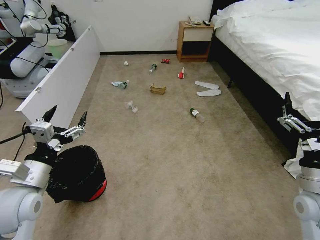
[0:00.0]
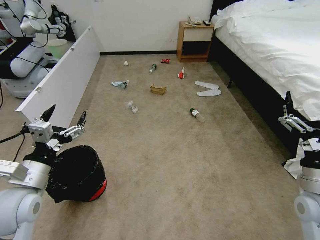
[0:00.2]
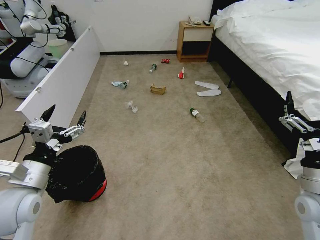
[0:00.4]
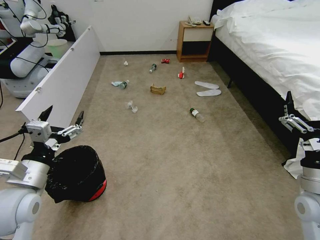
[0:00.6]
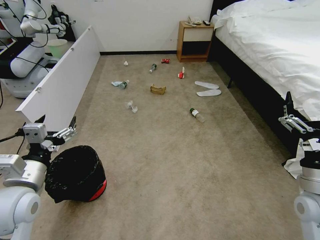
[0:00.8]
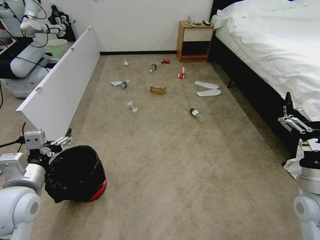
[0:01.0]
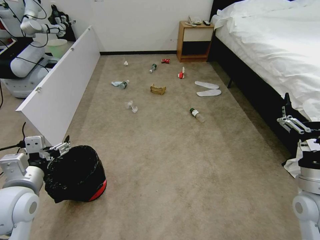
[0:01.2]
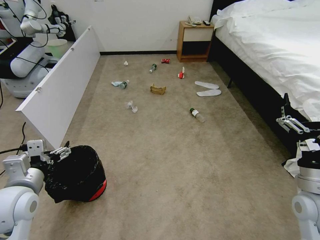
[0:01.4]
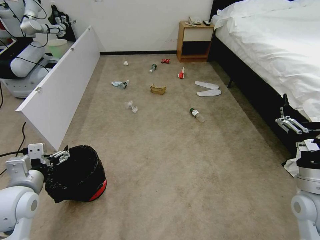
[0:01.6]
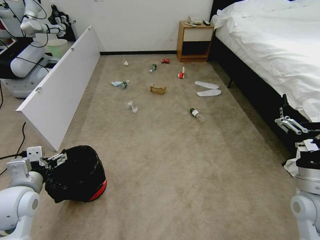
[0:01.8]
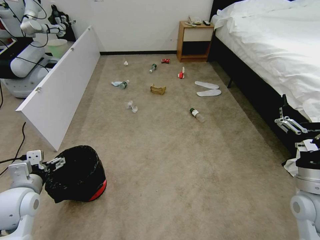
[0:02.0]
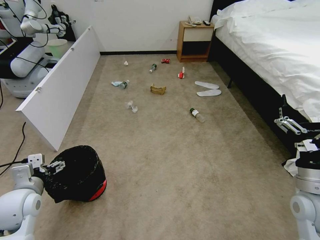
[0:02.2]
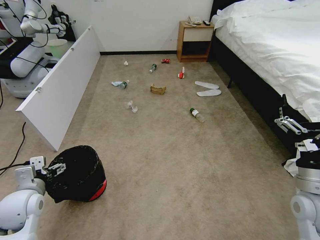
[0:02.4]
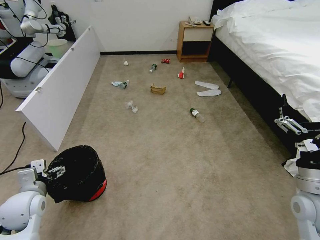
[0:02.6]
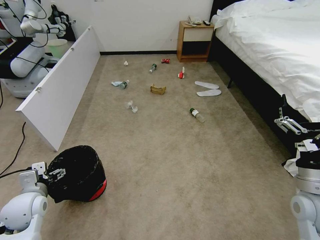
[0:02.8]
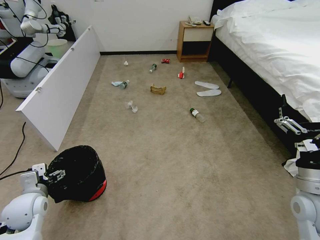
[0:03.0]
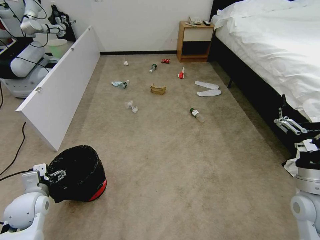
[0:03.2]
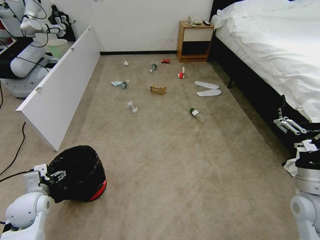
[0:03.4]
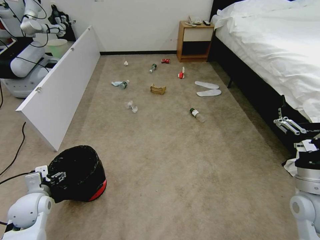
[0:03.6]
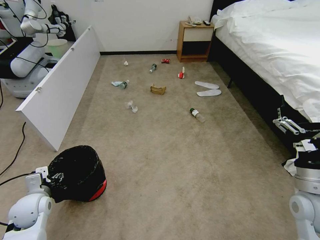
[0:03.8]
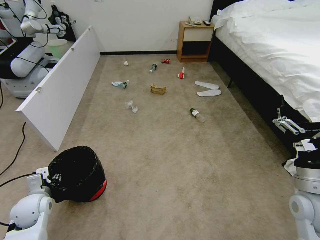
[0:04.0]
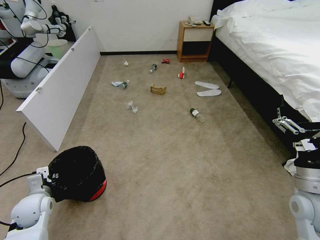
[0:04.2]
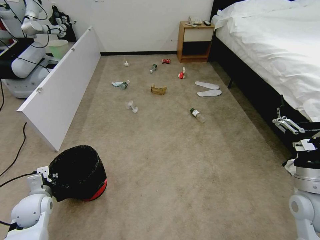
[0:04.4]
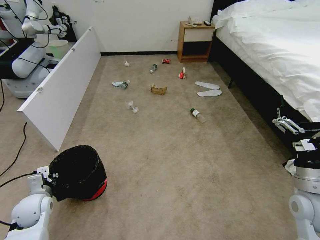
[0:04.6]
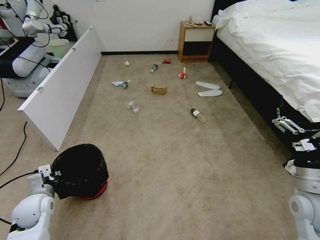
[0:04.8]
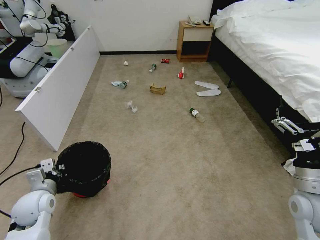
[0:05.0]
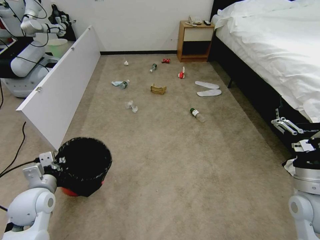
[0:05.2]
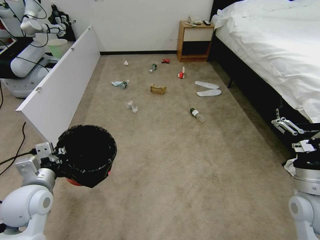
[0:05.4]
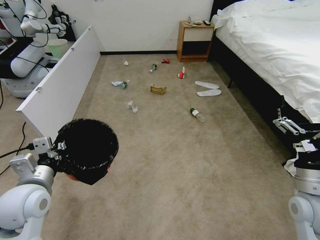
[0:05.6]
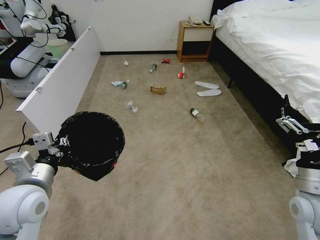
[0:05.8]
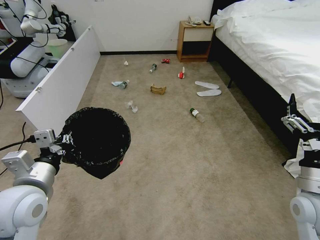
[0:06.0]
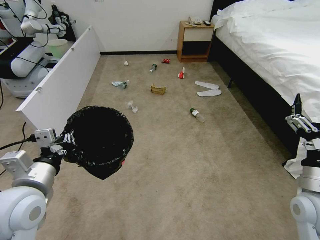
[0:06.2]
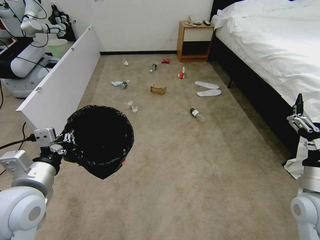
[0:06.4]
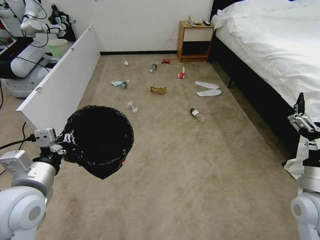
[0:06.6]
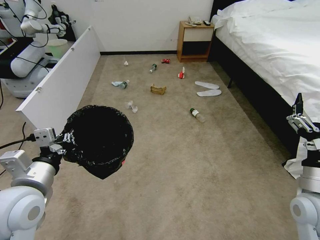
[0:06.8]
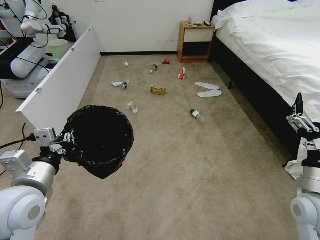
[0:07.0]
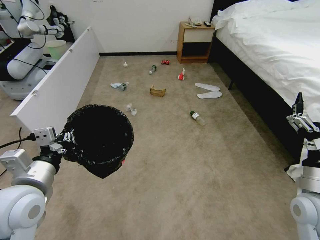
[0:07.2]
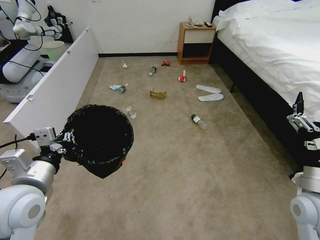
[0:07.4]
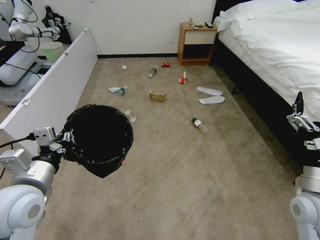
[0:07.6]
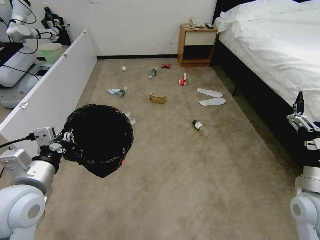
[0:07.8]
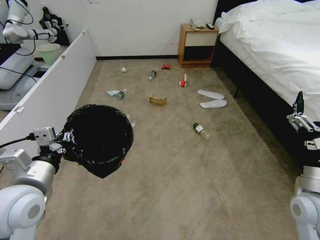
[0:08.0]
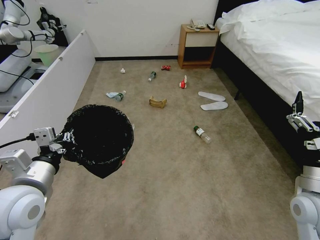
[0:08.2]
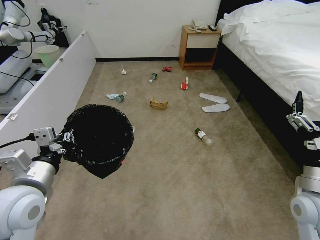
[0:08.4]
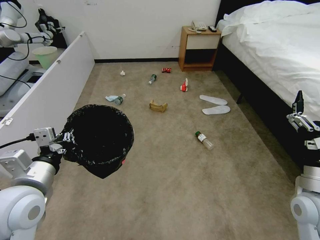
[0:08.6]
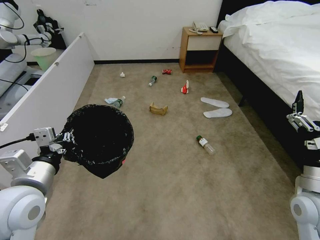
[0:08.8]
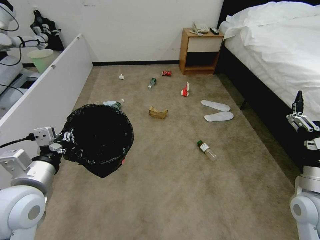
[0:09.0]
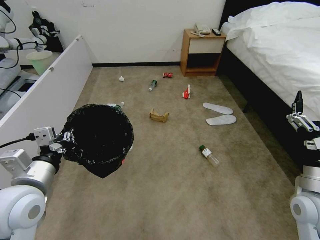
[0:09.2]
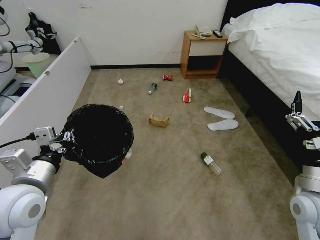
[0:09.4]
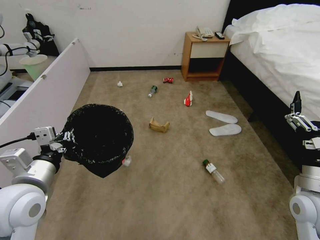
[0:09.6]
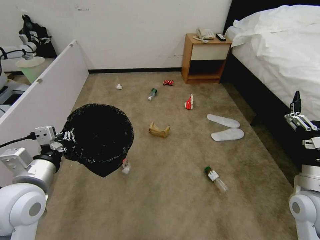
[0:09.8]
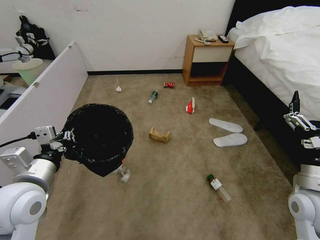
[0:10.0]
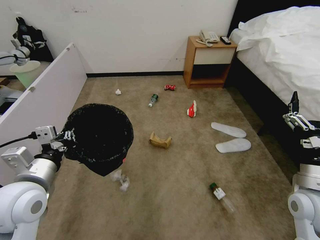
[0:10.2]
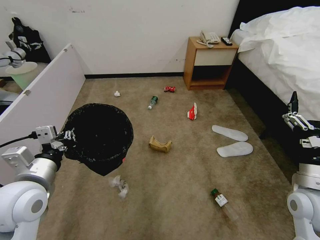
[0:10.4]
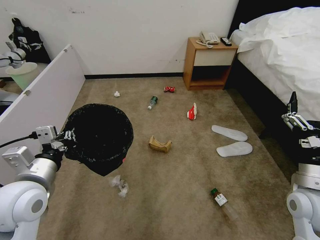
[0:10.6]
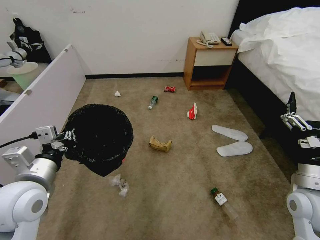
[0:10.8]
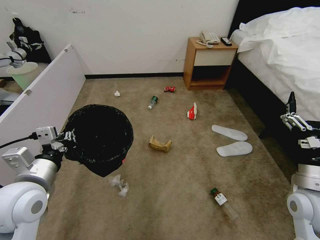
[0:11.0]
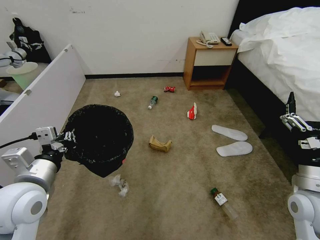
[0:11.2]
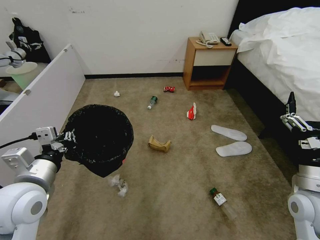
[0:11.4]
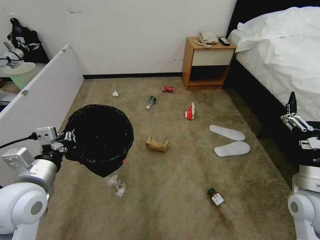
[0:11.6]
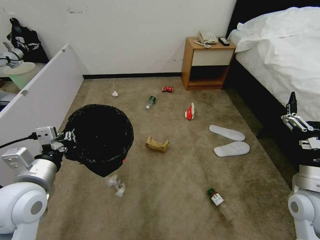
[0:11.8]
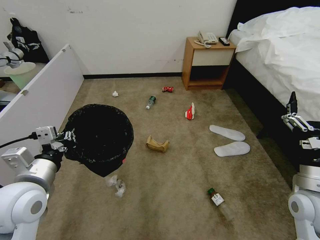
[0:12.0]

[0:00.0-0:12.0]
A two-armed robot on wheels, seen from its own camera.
Task of the whole recording: Pick up the trash bin, then pick up the garbage from the floor and place it into the trash bin.
0:01.6 to 0:03.0: The left gripper goes some 10 cm downward.
0:03.0 to 0:04.4: The grippers stay close to where they were, moving slightly.
0:04.4 to 0:06.0: The left gripper travels upward and to the right by approximately 20 cm.
0:06.0 to 0:09.0: Neither gripper changes place.
0:10.4 to 0:12.0: Neither gripper changes place.

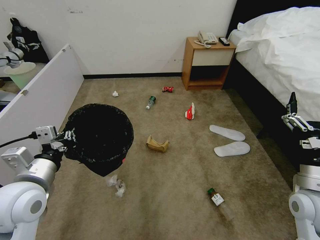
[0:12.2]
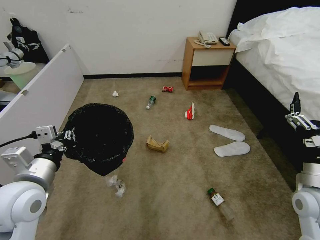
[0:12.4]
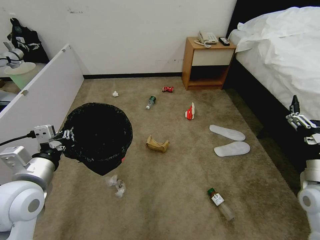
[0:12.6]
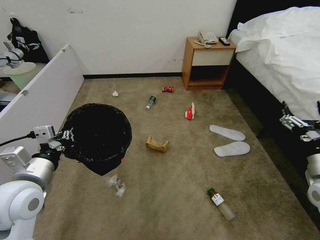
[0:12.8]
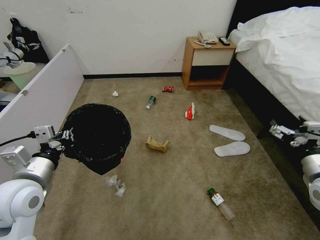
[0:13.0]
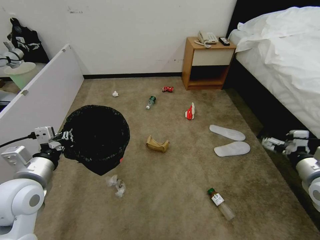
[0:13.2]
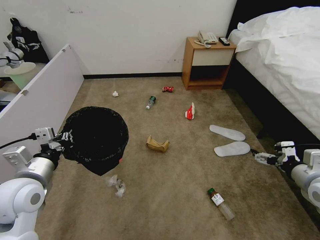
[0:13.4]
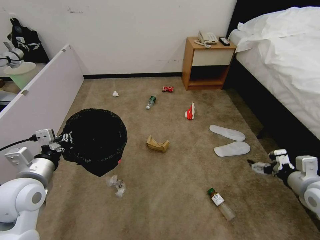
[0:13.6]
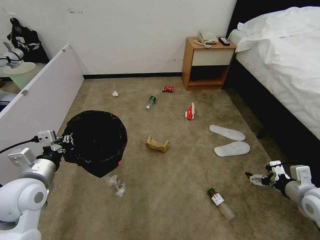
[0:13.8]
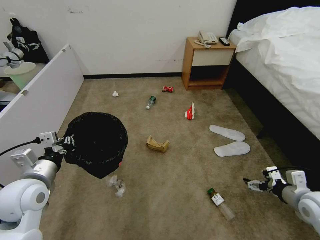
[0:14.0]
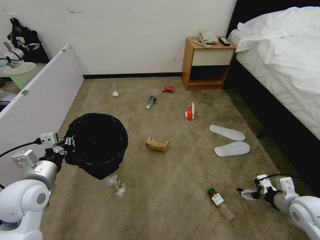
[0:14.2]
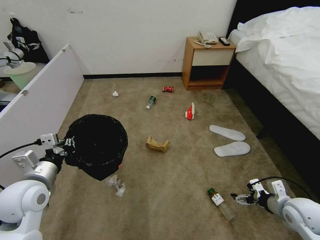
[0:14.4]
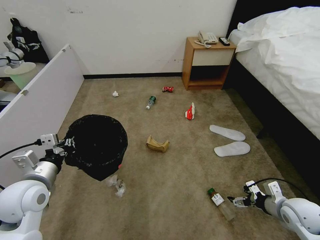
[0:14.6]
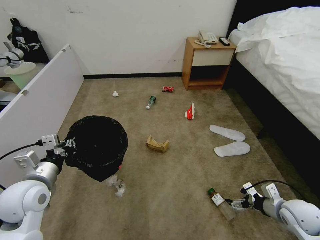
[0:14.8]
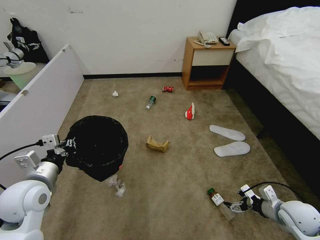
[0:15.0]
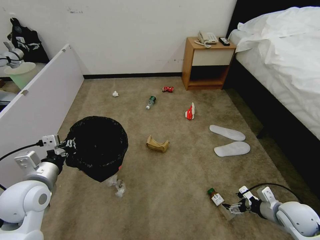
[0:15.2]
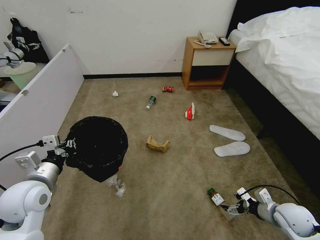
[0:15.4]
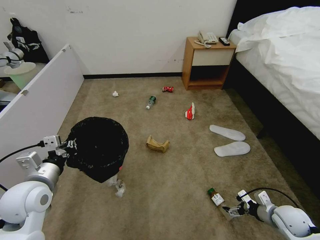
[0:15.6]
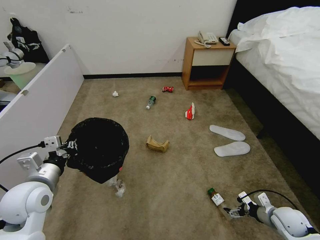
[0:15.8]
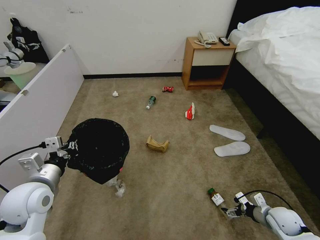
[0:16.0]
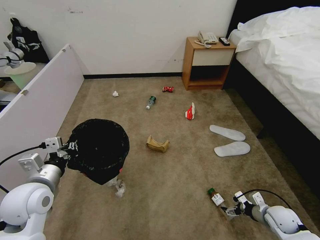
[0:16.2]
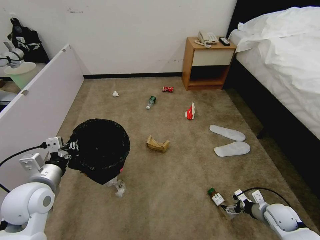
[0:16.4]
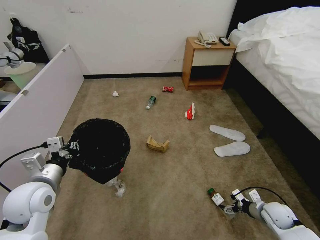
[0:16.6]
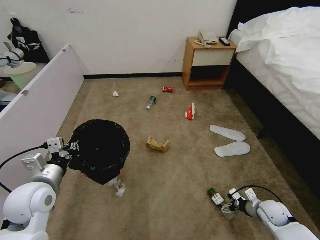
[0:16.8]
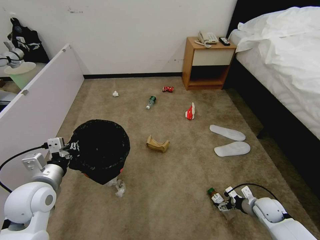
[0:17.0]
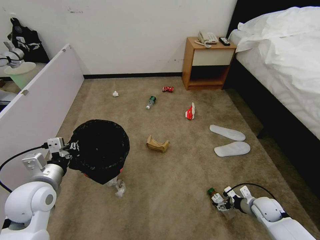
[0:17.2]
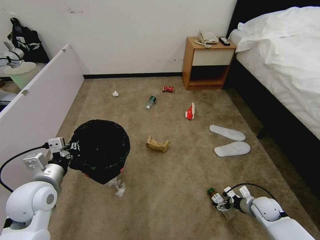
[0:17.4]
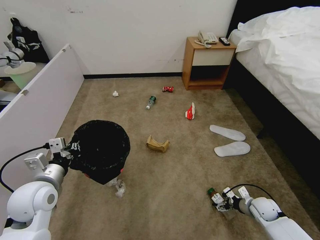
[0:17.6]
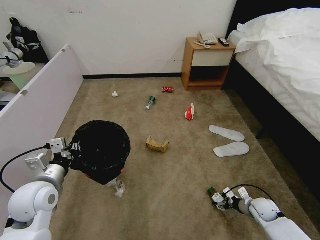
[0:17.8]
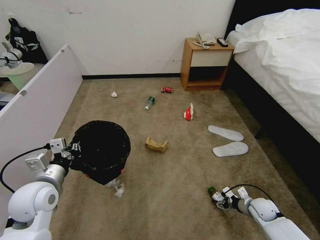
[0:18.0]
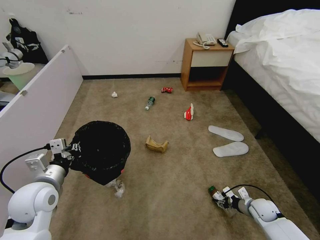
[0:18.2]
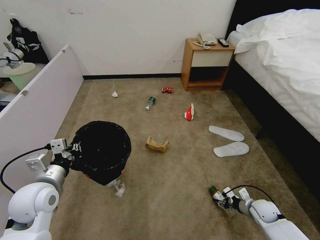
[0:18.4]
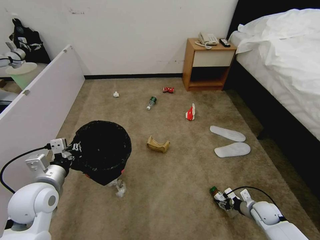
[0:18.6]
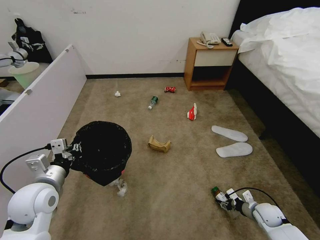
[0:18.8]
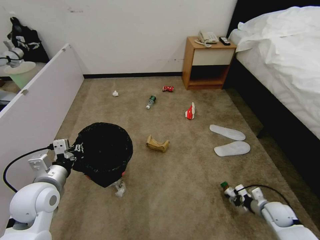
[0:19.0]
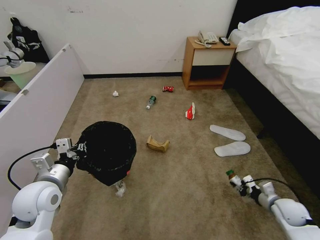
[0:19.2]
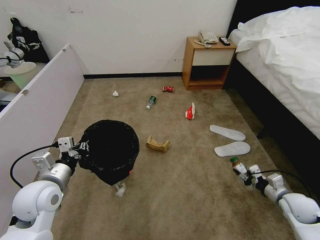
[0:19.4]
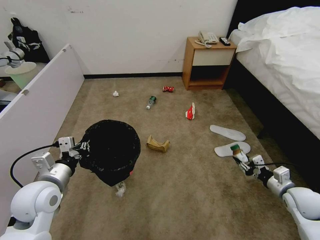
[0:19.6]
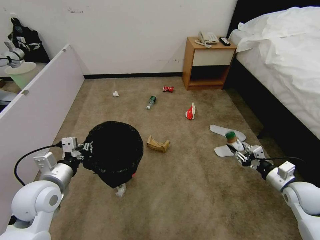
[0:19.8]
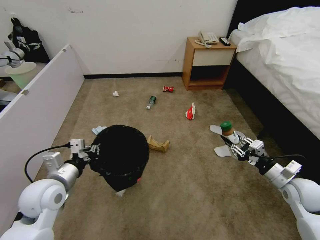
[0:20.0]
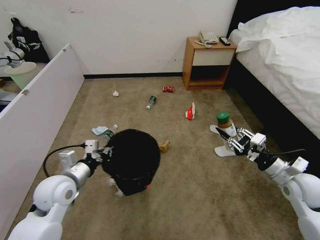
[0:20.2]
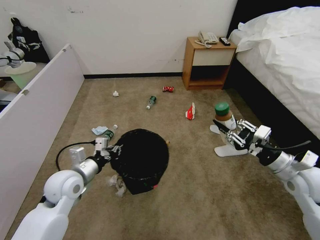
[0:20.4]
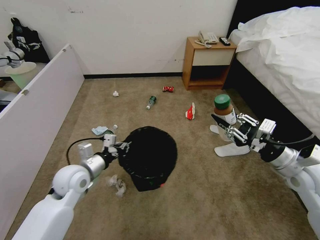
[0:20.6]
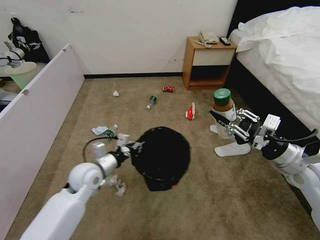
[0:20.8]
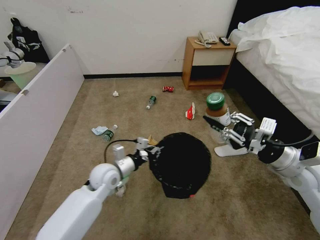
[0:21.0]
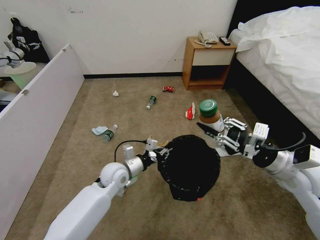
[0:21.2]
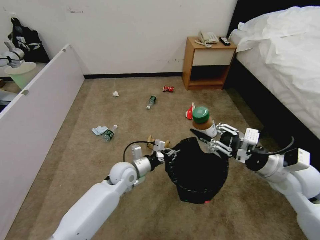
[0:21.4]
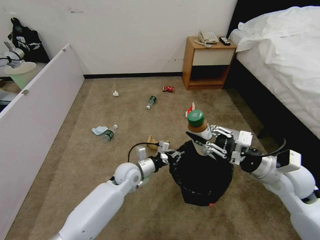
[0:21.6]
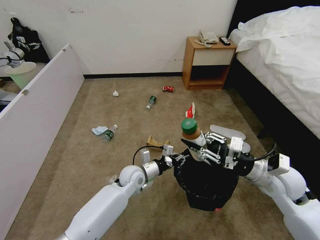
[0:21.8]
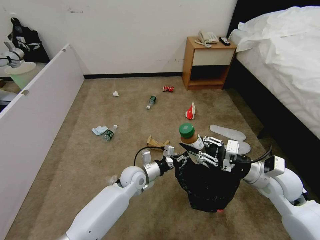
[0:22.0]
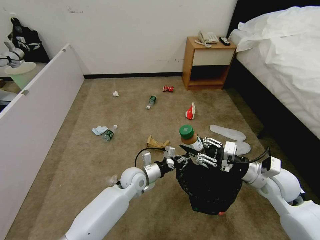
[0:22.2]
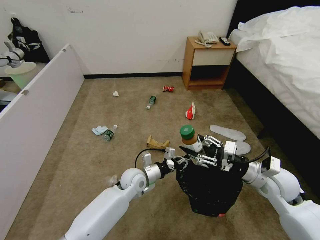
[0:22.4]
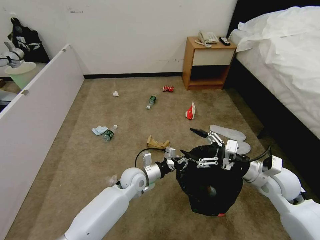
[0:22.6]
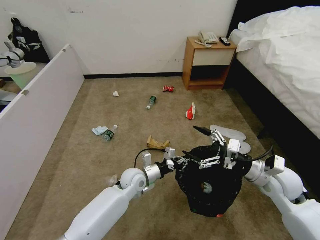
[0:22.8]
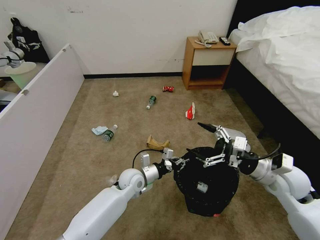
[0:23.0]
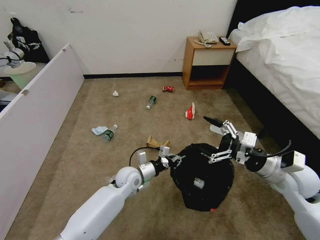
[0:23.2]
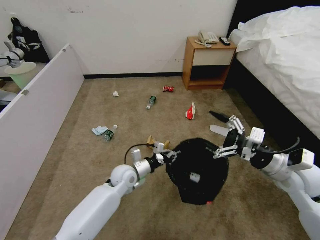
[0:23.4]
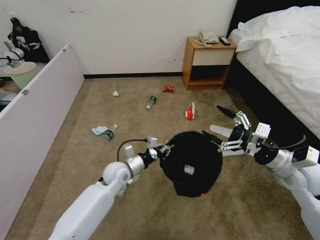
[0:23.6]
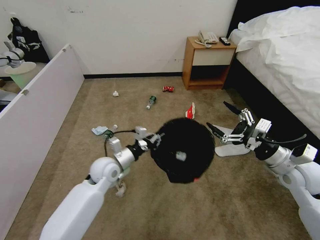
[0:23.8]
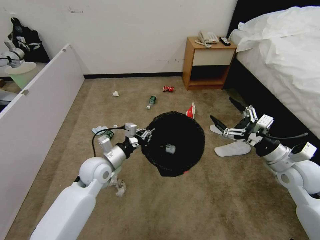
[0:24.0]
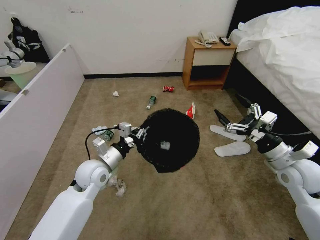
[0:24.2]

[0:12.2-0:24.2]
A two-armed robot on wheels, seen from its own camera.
Task of the whole recording: Pick up the trash bin, then pick up the garbage from the floor and place it into the trash bin.
0:12.2 to 0:13.8: The right gripper shifts roughly 10 cm to the right. The left gripper moves about 5 cm.
0:13.8 to 0:15.2: The right gripper shifts some 10 cm downward.
0:15.2 to 0:16.6: The right gripper travels downward by approximately 10 cm.
0:16.6 to 0:18.2: The right gripper moves some 5 cm, and closes.
0:18.2 to 0:19.8: The right gripper is displaced upward by roughly 20 cm.
0:19.8 to 0:21.2: The left gripper goes about 20 cm to the right, forward and downward. Meanwhile the right gripper moves upward and to the left, about 15 cm.
0:21.2 to 0:22.6: The left gripper travels to the right by roughly 5 cm; the right gripper shifts about 5 cm downward, and opens.
0:22.6 to 0:24.2: The right gripper changes place by some 5 cm, while the left gripper heads to the left and upward, covering some 15 cm.
